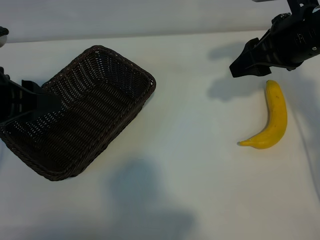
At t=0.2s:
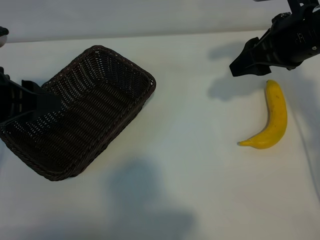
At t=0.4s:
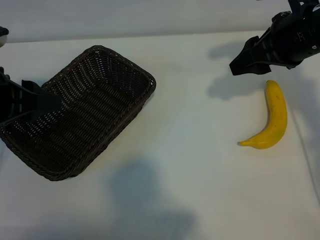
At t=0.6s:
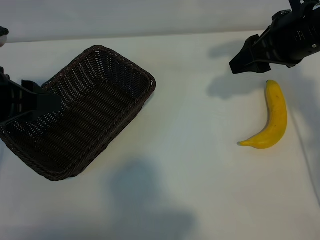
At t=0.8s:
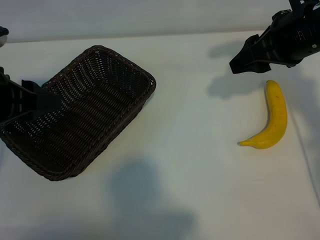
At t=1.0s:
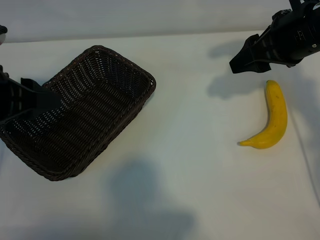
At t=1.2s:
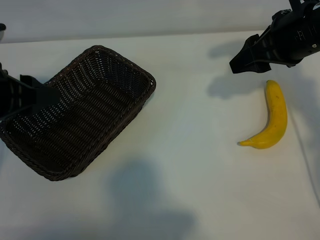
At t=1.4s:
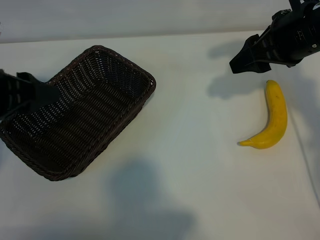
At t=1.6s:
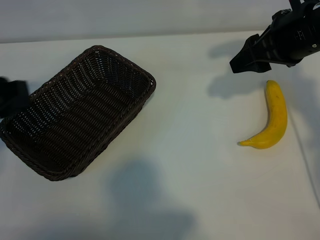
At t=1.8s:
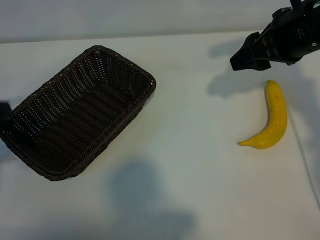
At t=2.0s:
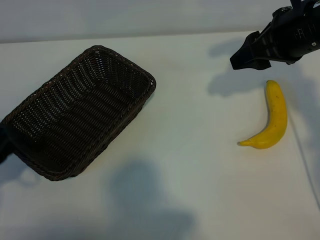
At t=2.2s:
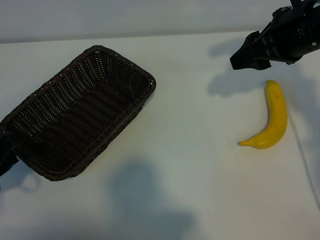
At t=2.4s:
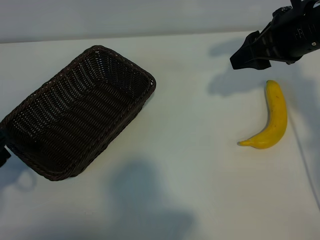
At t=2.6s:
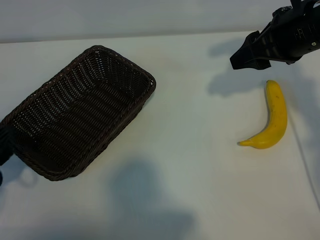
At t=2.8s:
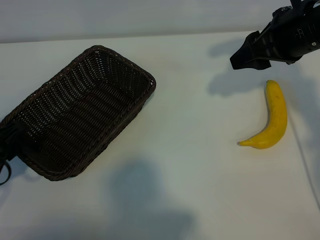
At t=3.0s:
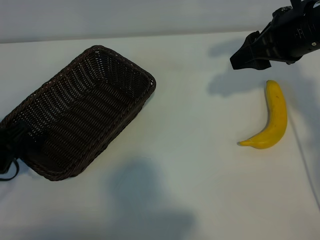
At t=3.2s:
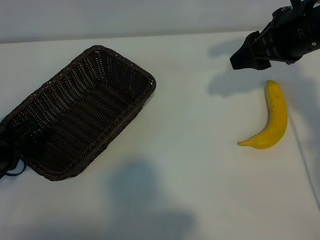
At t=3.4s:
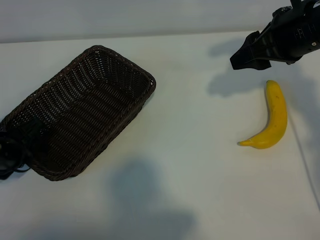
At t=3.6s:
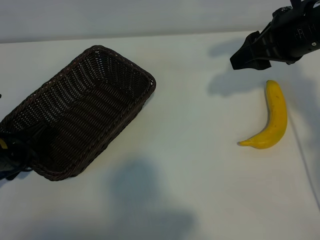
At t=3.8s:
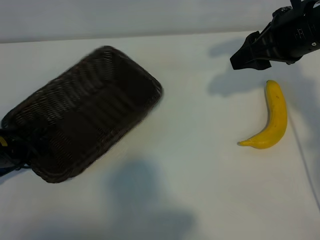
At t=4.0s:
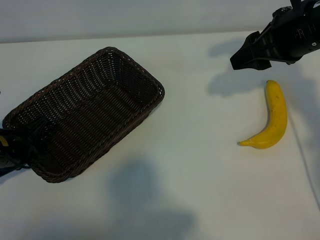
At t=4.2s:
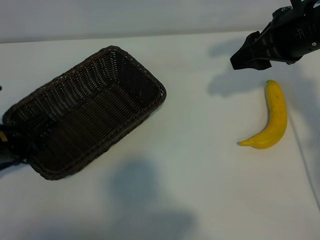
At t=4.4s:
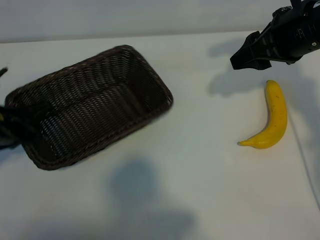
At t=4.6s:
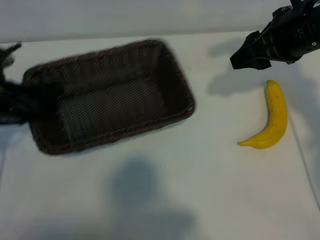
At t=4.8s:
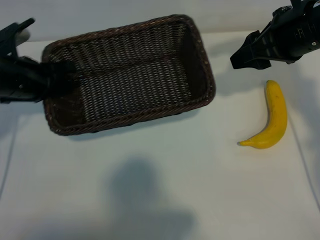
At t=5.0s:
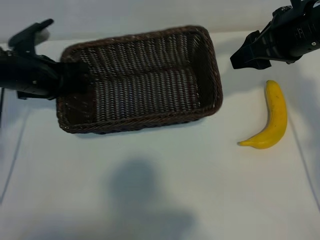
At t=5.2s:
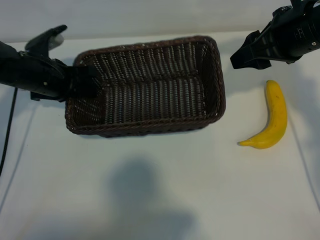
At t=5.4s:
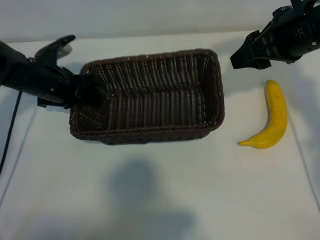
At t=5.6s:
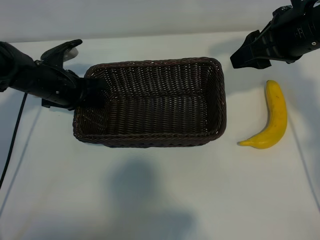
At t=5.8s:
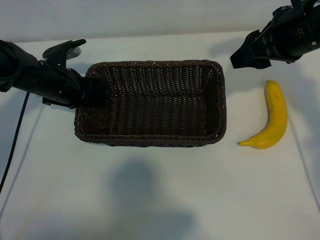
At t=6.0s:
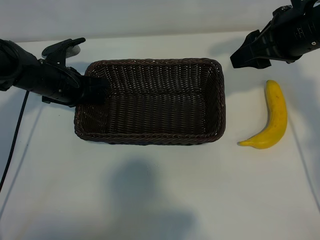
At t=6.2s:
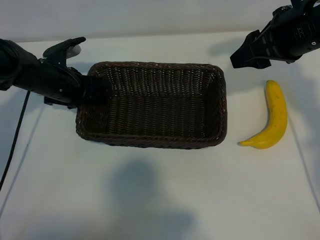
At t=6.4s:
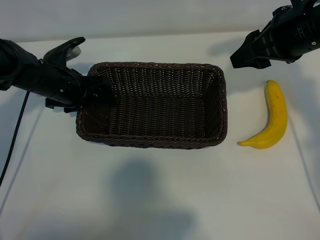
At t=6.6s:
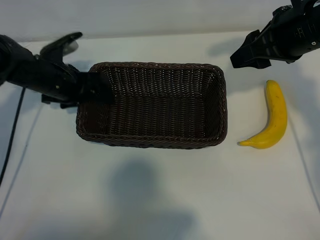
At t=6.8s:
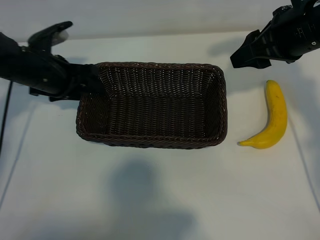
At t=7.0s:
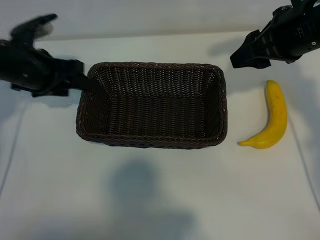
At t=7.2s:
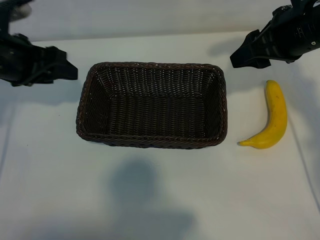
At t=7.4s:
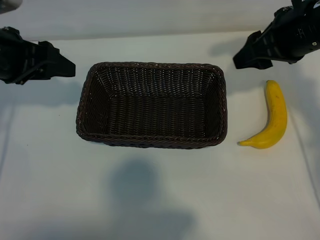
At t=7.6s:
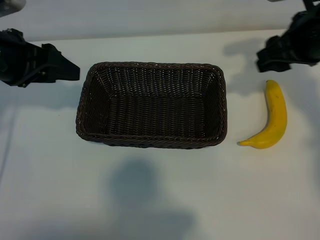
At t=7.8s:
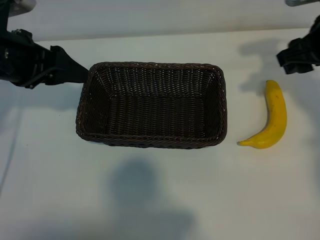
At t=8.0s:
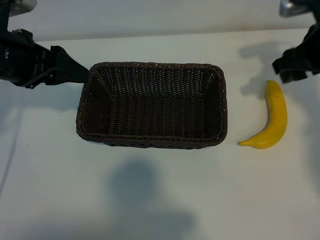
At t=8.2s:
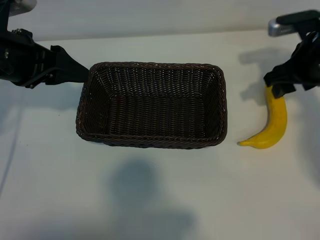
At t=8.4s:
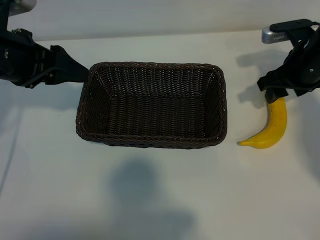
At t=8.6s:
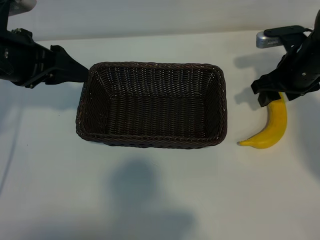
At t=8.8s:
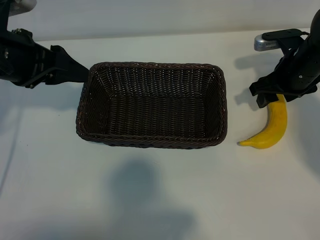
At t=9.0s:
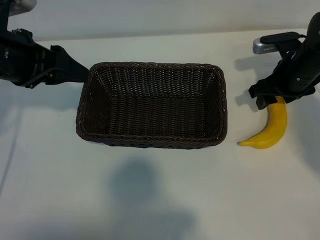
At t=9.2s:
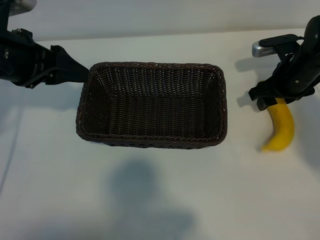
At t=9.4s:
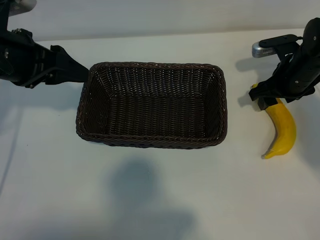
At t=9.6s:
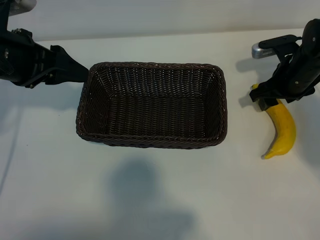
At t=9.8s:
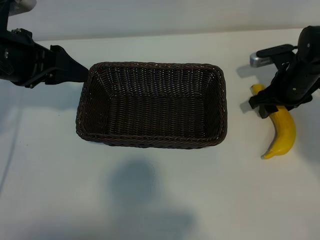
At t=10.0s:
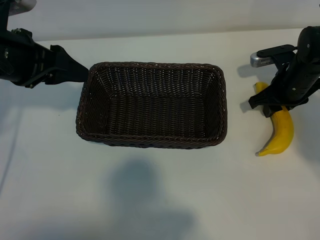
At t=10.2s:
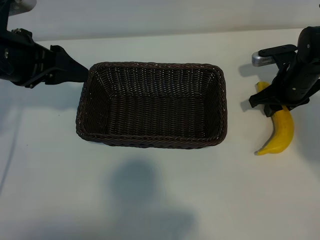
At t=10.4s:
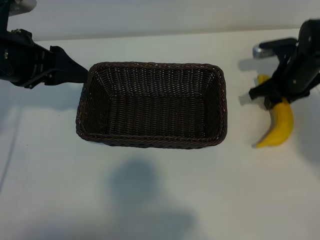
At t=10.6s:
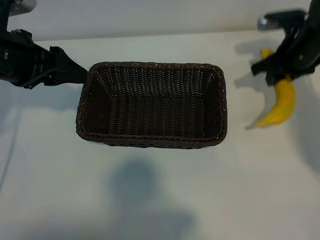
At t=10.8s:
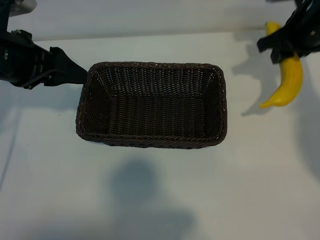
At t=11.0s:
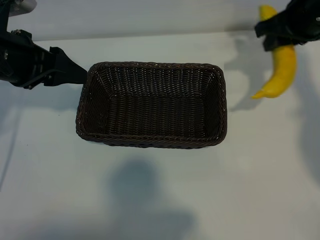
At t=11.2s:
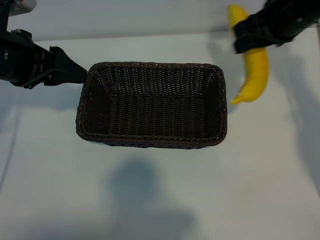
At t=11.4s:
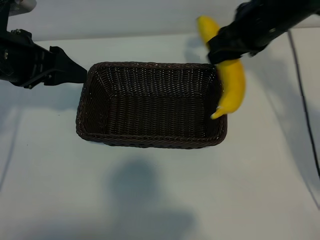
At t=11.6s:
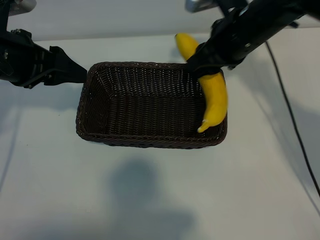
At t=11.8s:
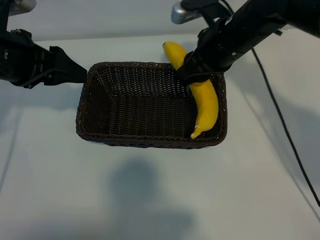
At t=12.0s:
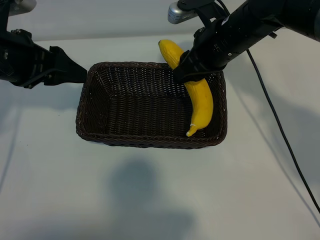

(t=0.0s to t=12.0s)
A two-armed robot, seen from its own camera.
Task of the whole recording: pick up the banana and put it into the basket.
Step, t=0.8s - t=4.0s: Grasp the basket with the left gripper.
Step, t=4.2s - t=6.6s: Place the basket in the center of the table with the left gripper.
Step, t=6.8s - t=10.0s: Grasp the banana with right gripper.
